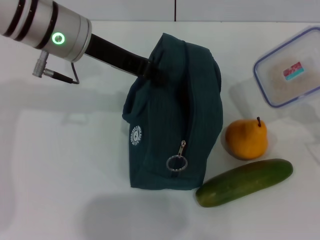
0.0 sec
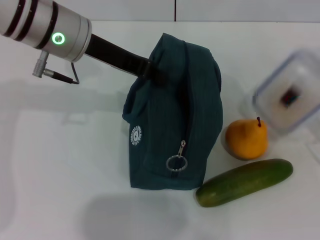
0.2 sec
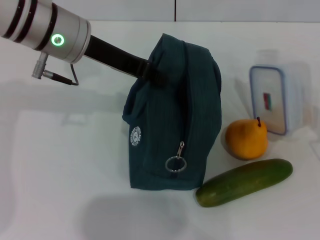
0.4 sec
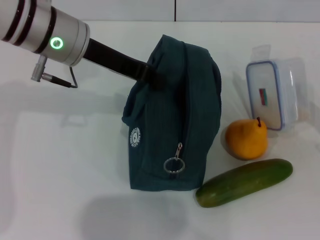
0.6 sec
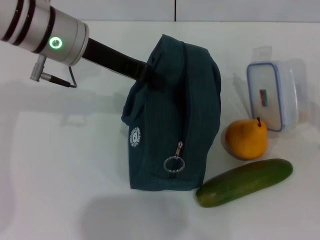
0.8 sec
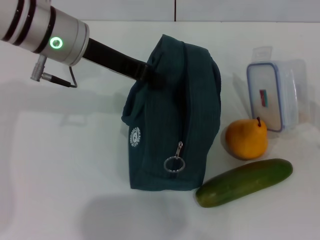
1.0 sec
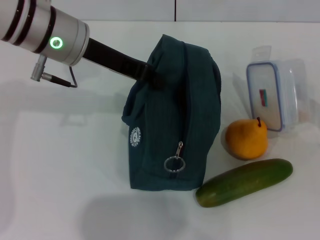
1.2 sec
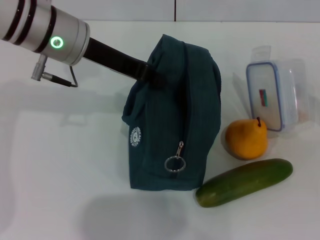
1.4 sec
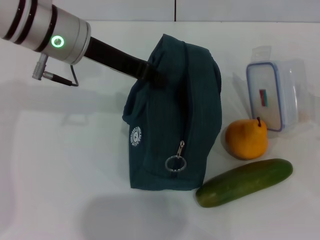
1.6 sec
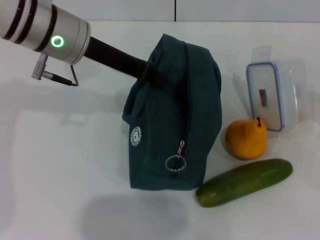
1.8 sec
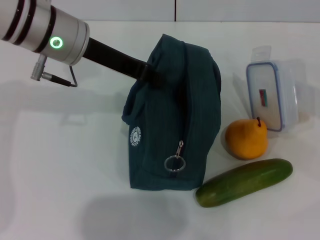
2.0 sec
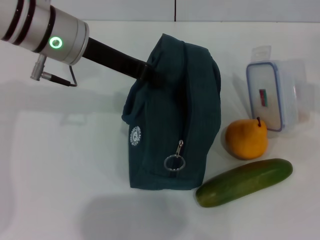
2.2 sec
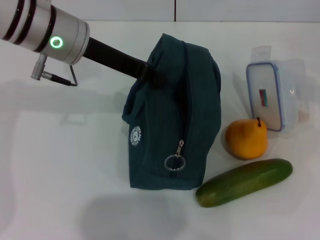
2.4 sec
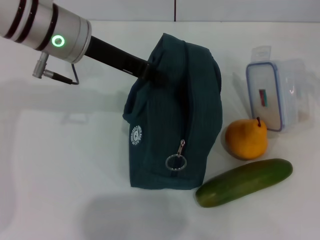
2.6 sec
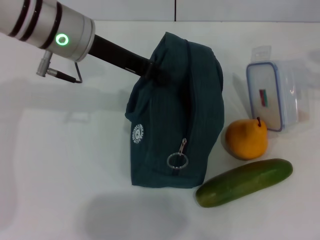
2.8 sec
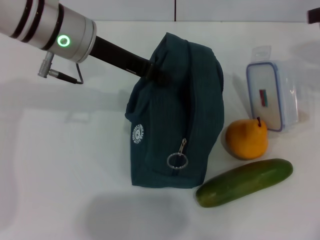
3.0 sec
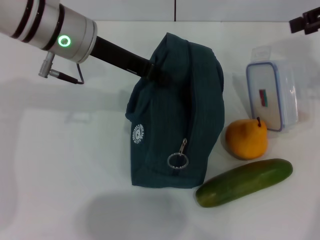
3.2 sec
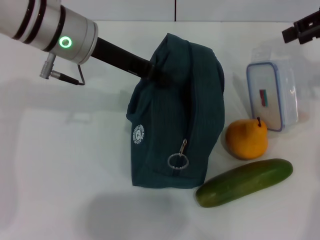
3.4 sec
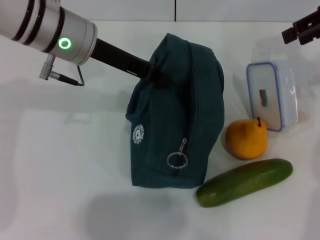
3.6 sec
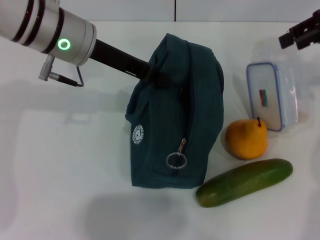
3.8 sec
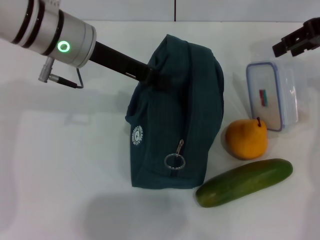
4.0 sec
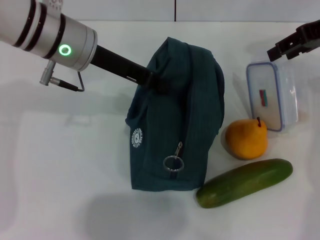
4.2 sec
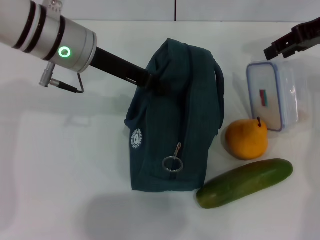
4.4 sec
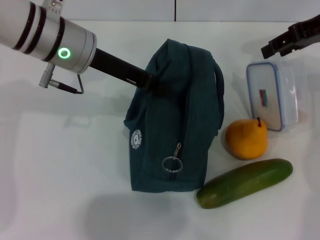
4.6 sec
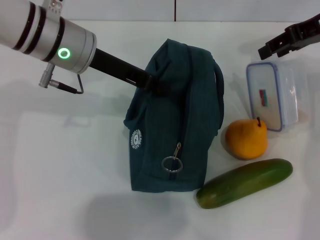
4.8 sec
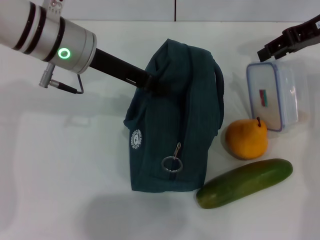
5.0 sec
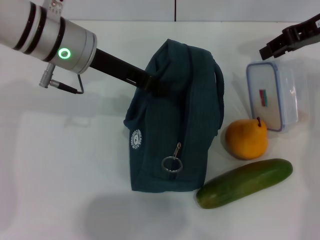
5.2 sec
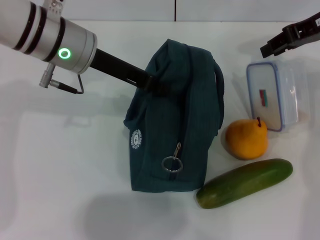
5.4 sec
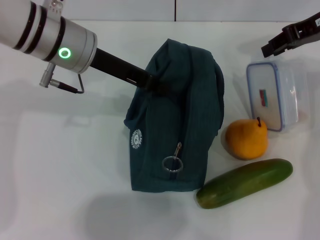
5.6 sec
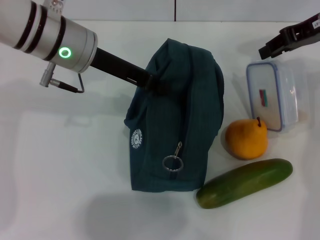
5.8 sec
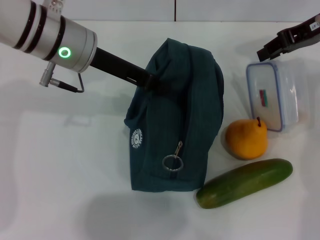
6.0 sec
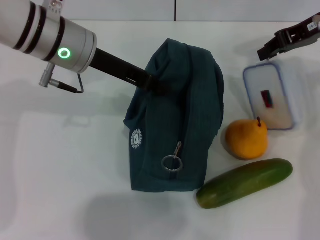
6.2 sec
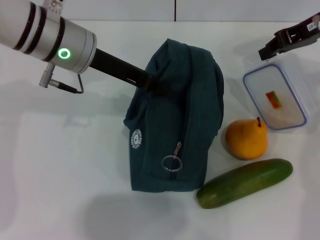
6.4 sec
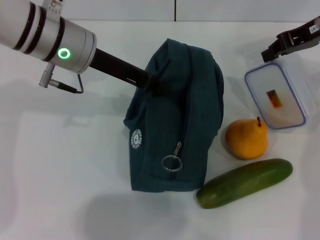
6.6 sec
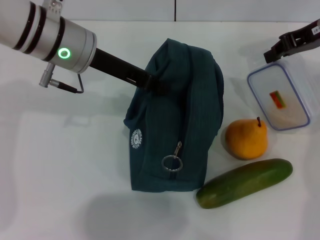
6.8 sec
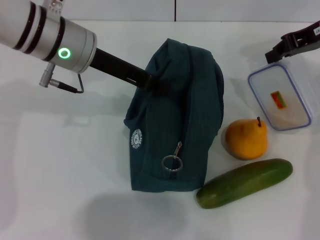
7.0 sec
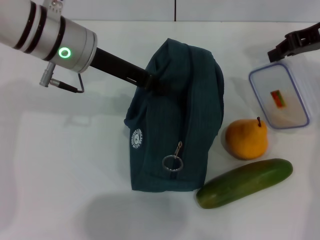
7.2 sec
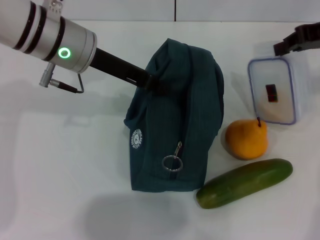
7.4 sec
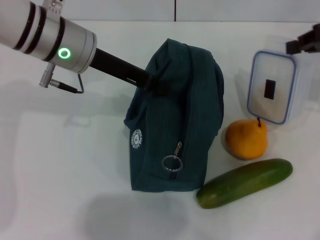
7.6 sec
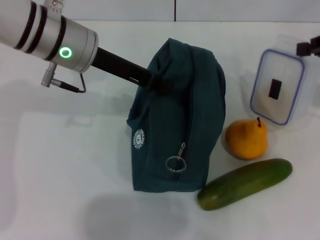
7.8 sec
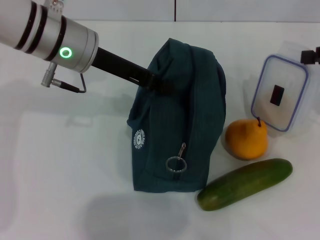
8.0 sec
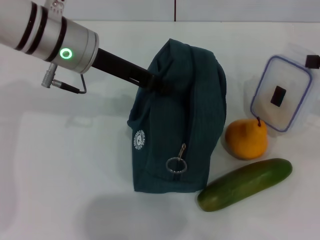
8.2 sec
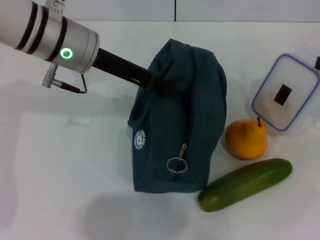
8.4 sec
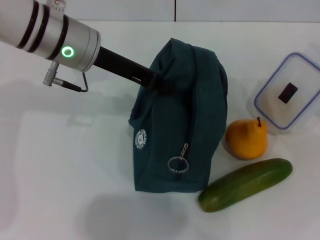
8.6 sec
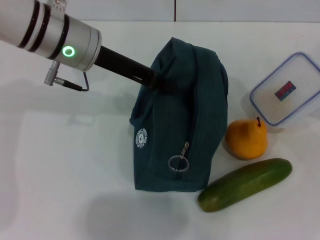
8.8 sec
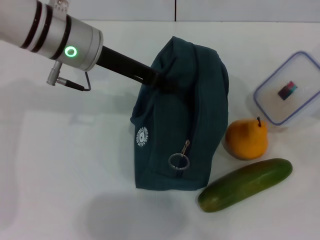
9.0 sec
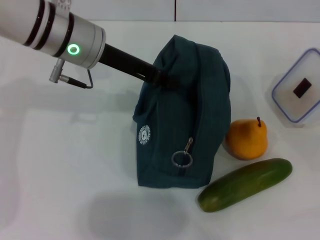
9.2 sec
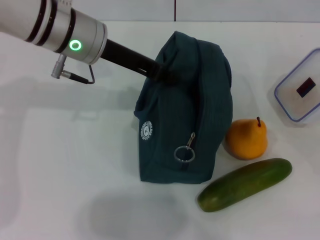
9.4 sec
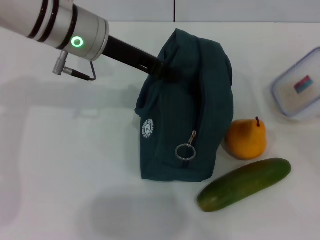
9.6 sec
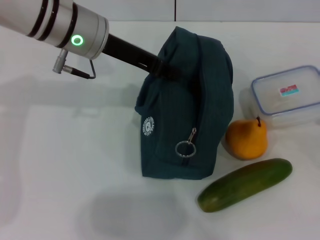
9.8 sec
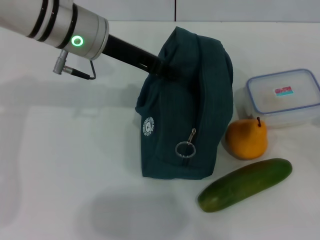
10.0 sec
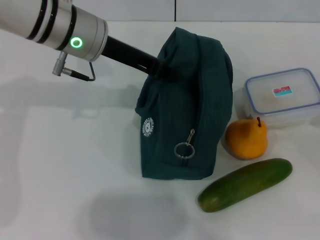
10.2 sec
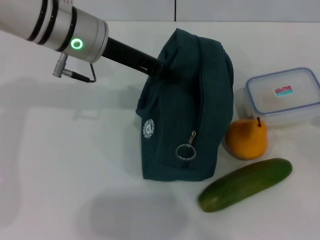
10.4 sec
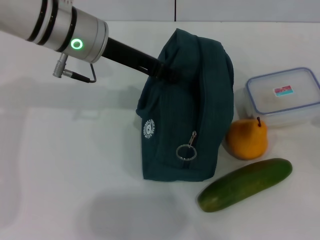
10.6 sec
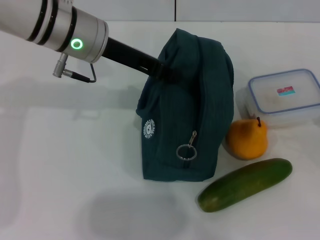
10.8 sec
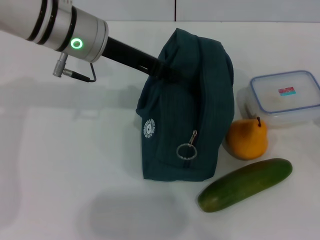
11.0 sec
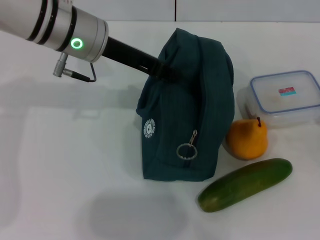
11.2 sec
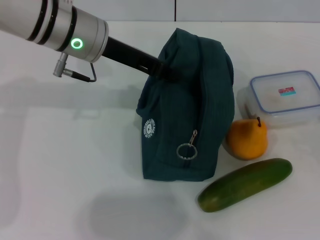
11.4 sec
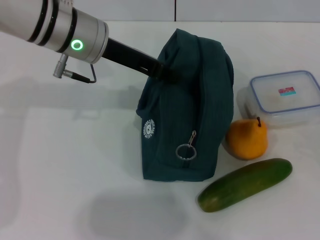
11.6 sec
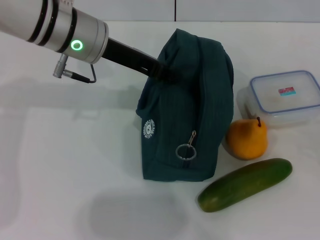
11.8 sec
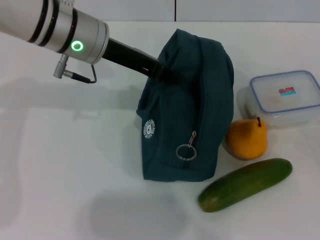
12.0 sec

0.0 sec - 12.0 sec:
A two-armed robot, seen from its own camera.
0.0 sec - 1.6 sec: There are only small adjustments of the grippers.
1.6 sec - 3.0 sec: The right gripper goes some 20 cm upward and forward, and opens up.
3.0 sec - 4.4 sec: The right gripper travels to the left by about 10 cm.
4.4 sec - 6.0 sec: The right gripper closes up.
6.0 sec - 7.6 sec: The right gripper heads to the right, covering approximately 5 cm.
7.6 sec - 9.0 sec: The right gripper shifts about 15 cm downward, backward and to the right.
9.0 sec - 10.4 sec: The right gripper shifts by about 5 cm.
10.4 sec - 12.0 sec: The right gripper ends up some 5 cm from where it was, and opens its fingers.

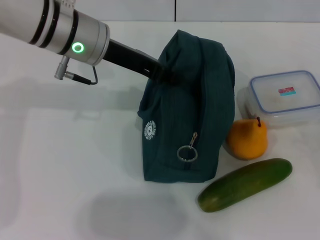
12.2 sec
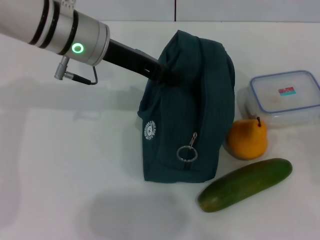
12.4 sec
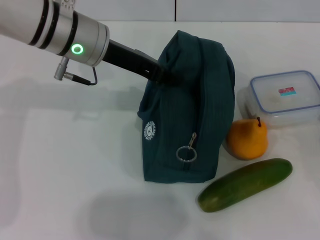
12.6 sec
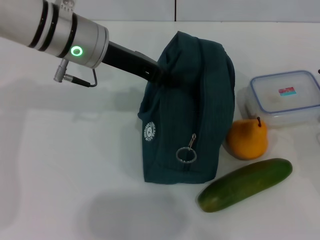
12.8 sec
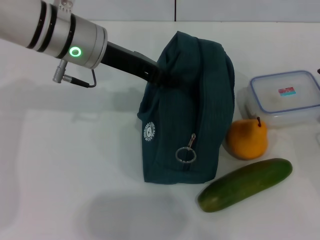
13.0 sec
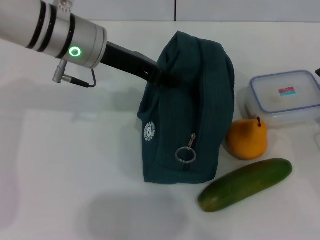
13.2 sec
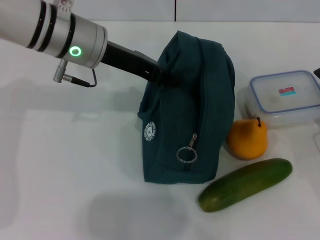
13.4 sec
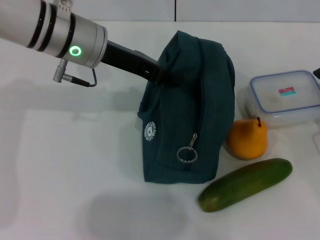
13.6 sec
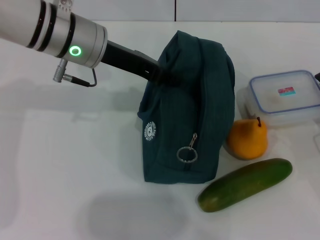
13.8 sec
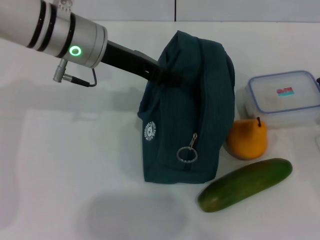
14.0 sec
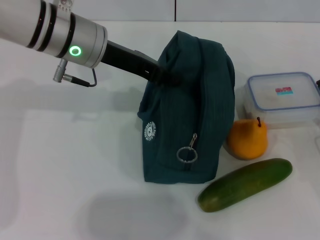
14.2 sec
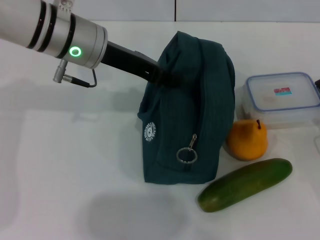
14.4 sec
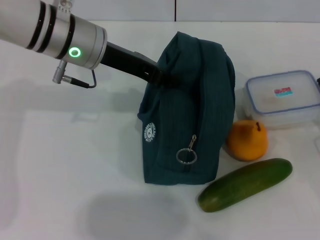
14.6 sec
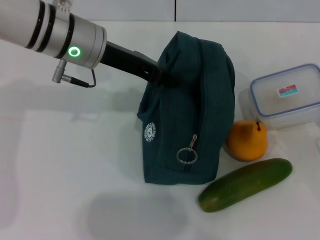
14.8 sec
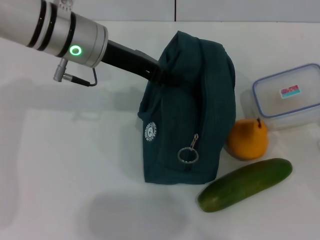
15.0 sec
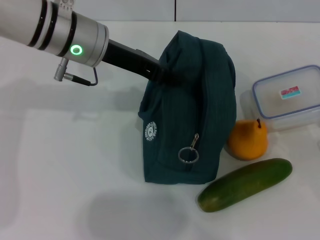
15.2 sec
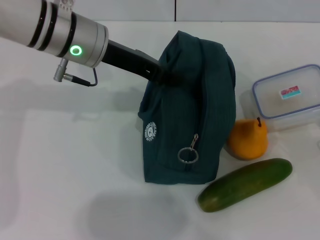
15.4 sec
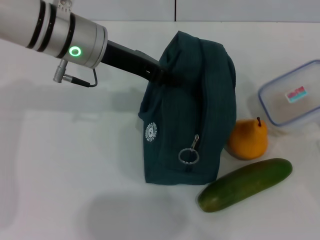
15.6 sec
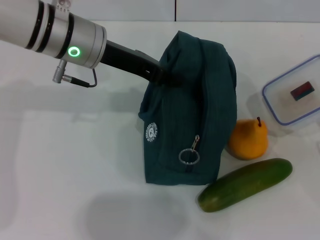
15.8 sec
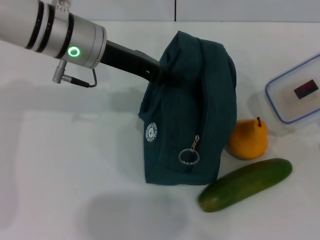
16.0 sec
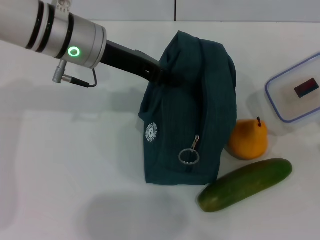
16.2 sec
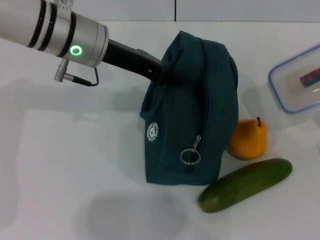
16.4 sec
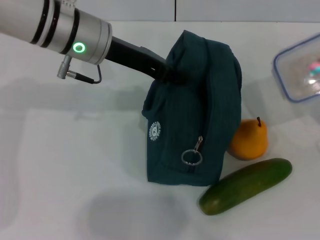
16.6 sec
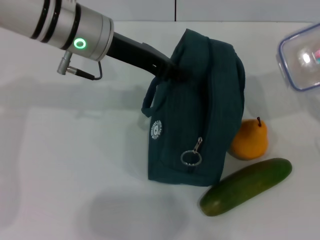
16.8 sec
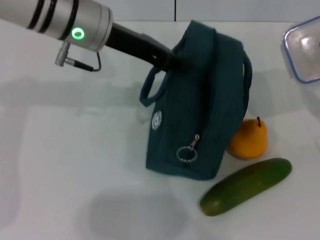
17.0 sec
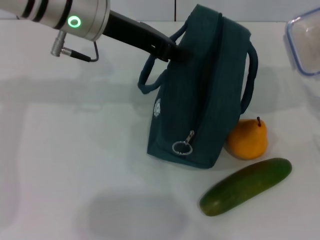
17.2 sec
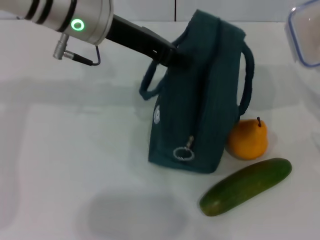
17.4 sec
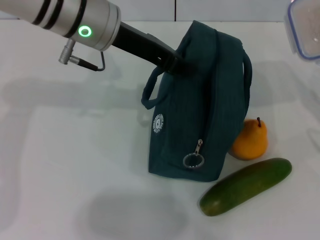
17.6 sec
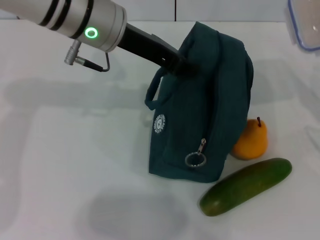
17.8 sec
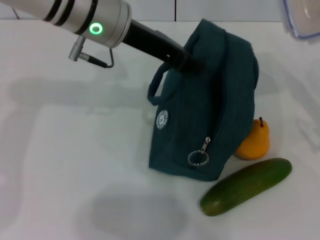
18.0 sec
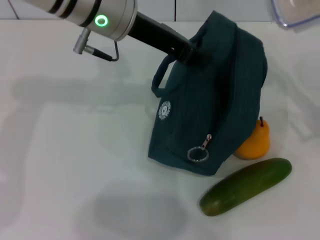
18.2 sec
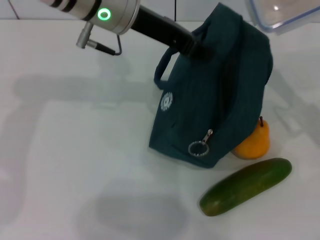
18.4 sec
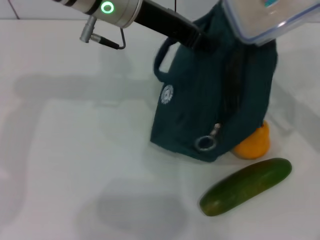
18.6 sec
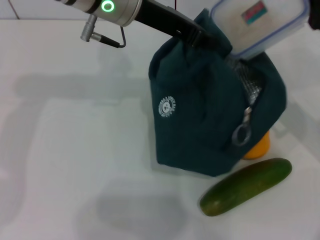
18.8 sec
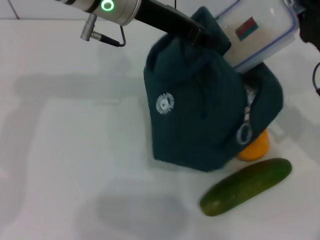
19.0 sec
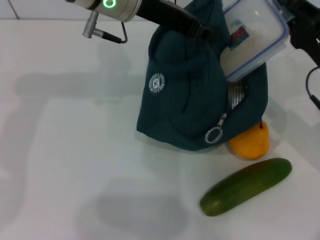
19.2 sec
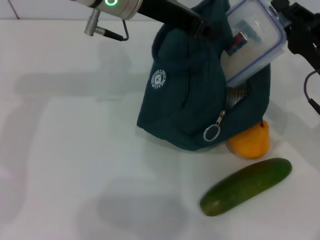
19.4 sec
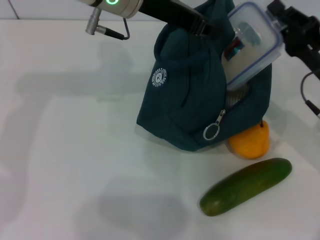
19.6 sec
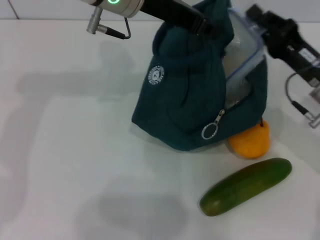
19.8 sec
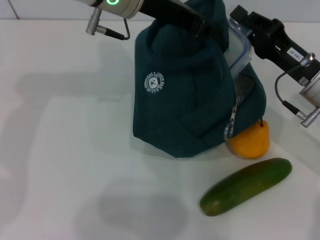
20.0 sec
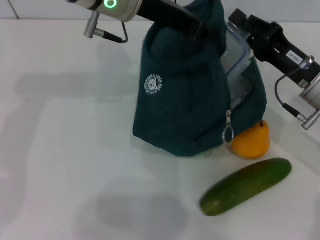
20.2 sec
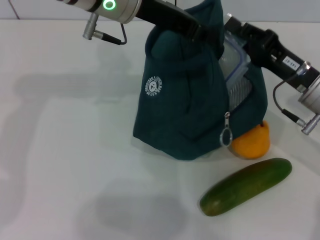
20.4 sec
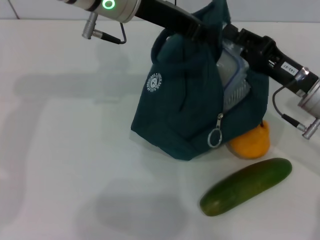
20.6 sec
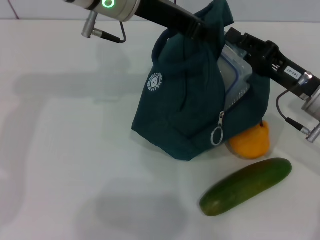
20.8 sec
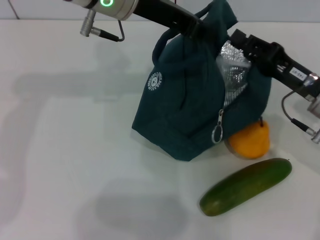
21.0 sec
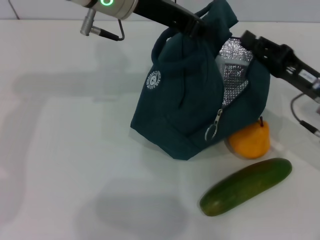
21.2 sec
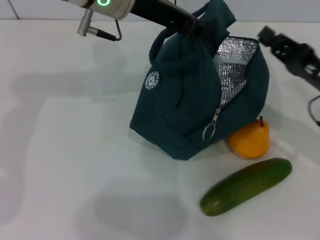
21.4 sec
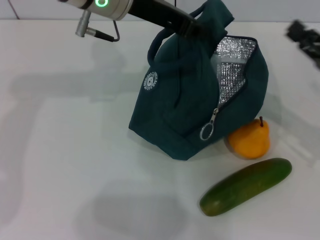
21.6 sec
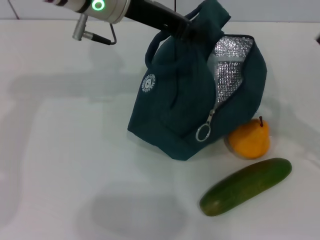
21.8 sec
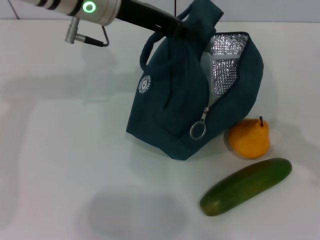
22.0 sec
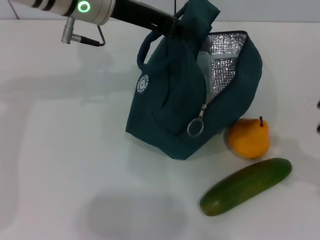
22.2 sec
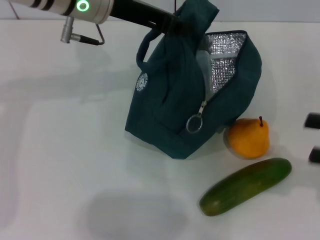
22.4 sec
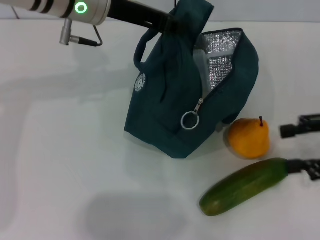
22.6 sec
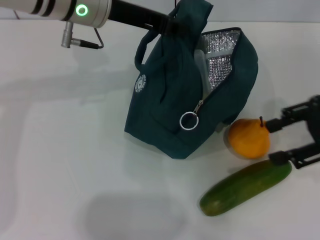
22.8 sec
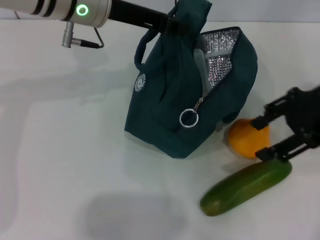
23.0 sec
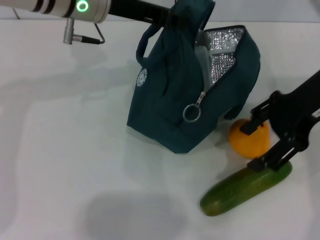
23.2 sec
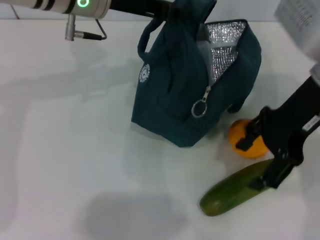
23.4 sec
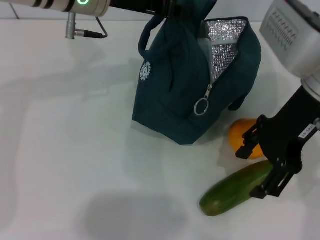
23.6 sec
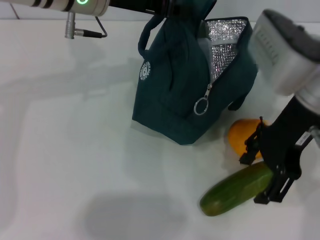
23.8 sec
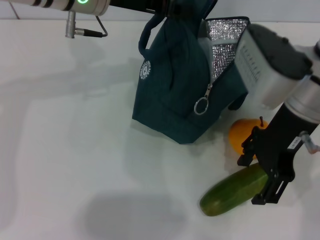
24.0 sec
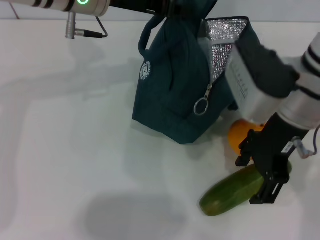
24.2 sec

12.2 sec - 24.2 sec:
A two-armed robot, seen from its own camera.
Step, 12.2 sec - 14.4 sec: Pick up the lunch box with your right hand.
Step, 14.6 sec - 21.4 sec: Place the lunch box into the lunch bag with your right hand.
12.2 sec - 13.8 sec: There are only small adjustments of the grippers.
13.8 sec - 15.2 sec: The right gripper closes its fingers.
15.2 sec - 16.6 sec: The grippers move only a little.
16.6 sec - 18.2 sec: The right gripper goes about 10 cm upward and forward. The left gripper ends up about 5 cm from where it was.
18.2 sec - 19.8 sec: The right gripper is displaced to the left by approximately 5 cm.
19.8 sec - 21.2 sec: The grippers make only small movements.
21.2 sec - 22.6 sec: The right gripper travels upward, to the right and backward by about 15 cm, and opens its fingers.
22.6 sec - 24.2 sec: The right gripper is displaced to the left by about 20 cm.
